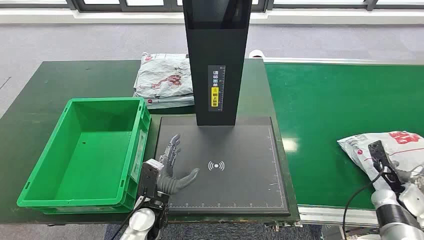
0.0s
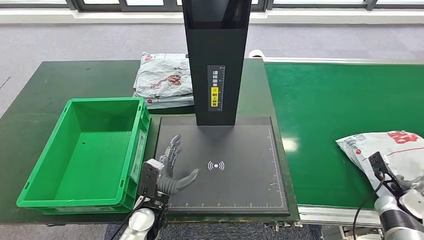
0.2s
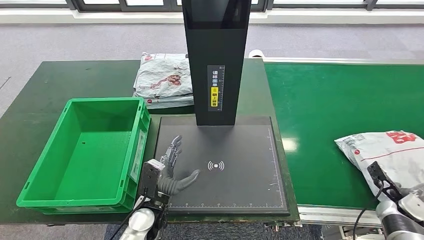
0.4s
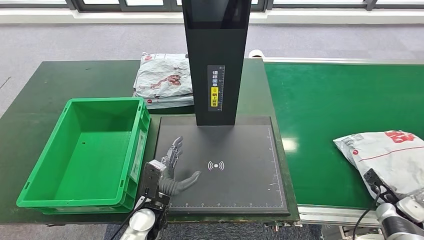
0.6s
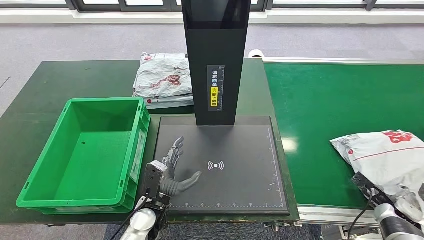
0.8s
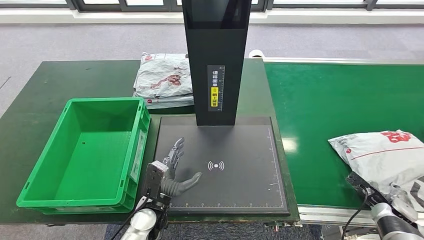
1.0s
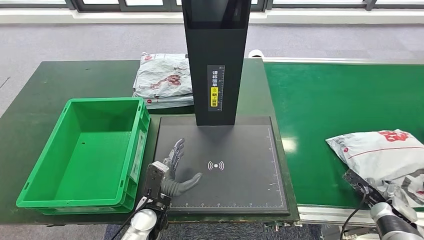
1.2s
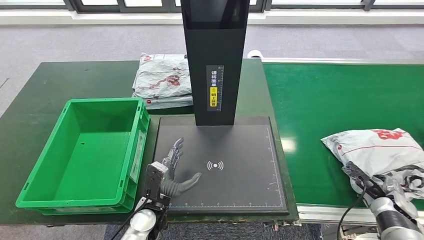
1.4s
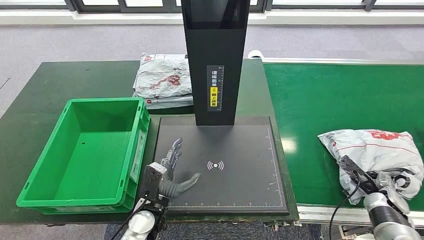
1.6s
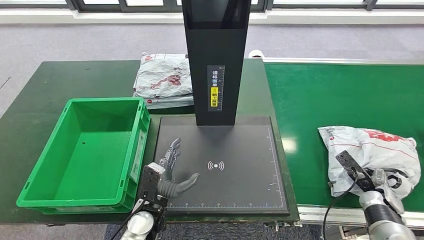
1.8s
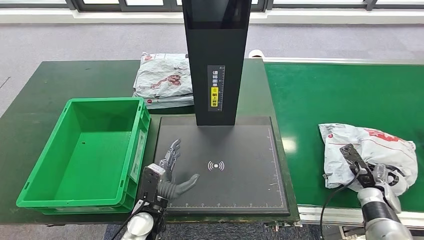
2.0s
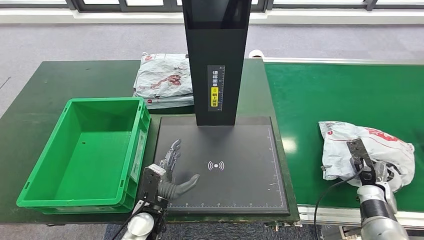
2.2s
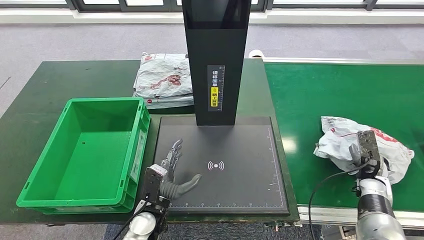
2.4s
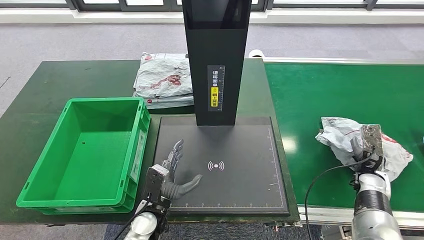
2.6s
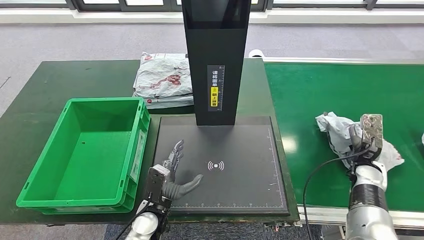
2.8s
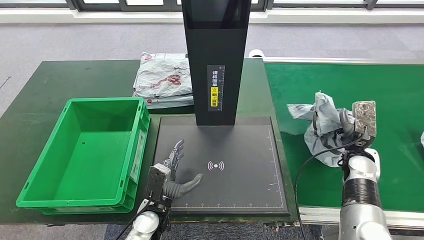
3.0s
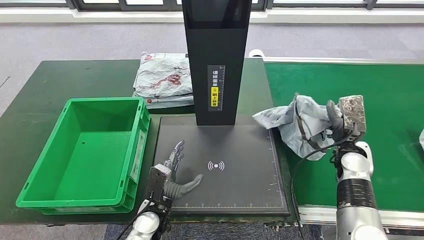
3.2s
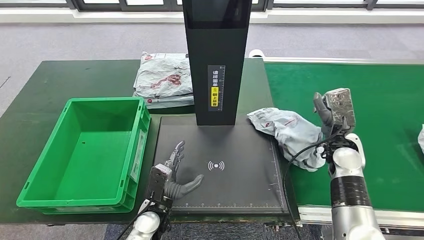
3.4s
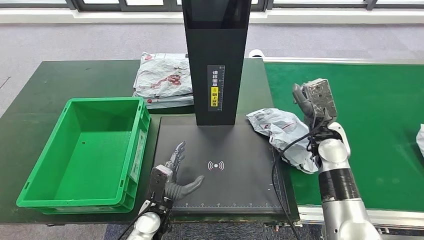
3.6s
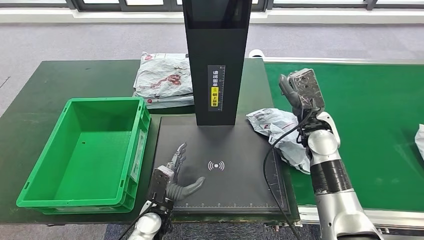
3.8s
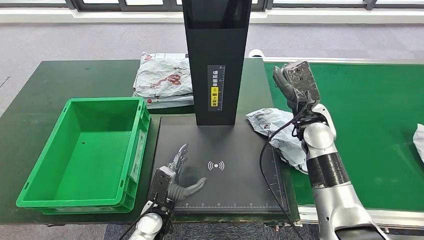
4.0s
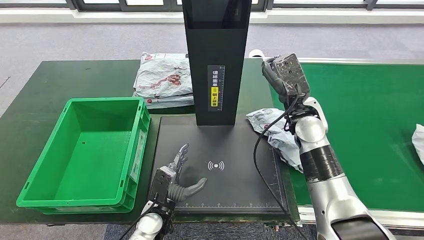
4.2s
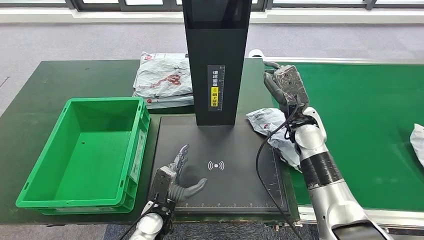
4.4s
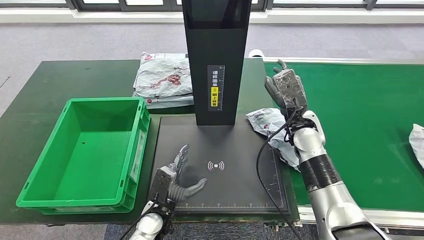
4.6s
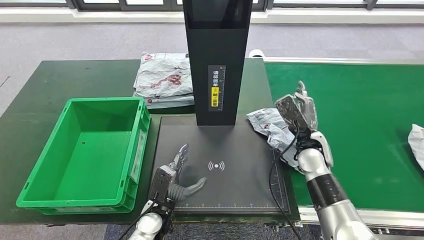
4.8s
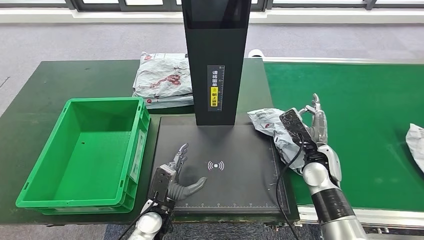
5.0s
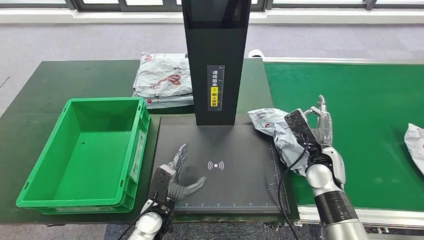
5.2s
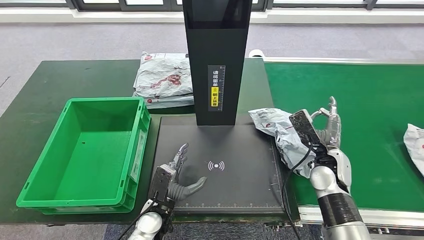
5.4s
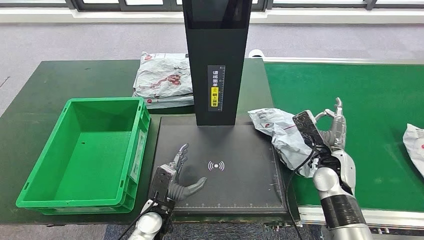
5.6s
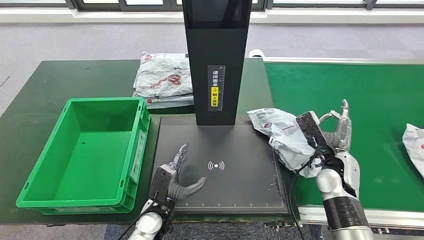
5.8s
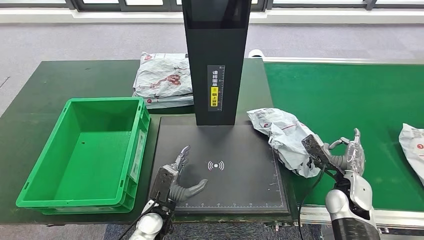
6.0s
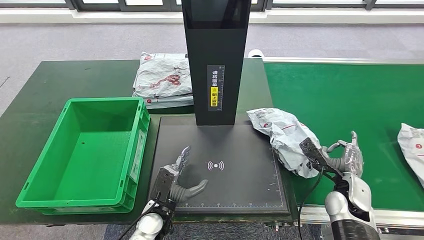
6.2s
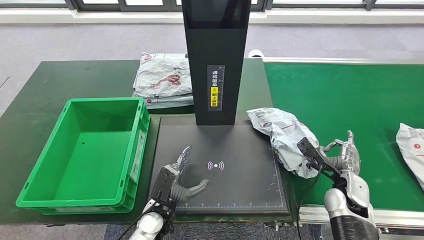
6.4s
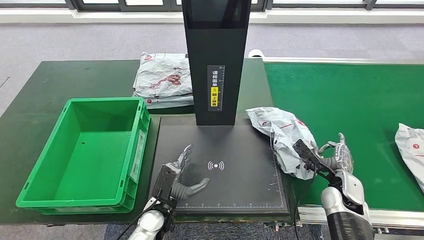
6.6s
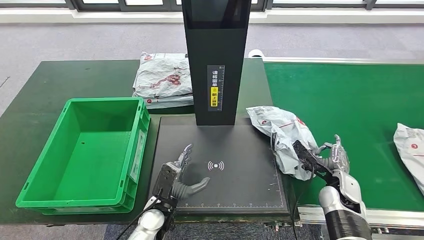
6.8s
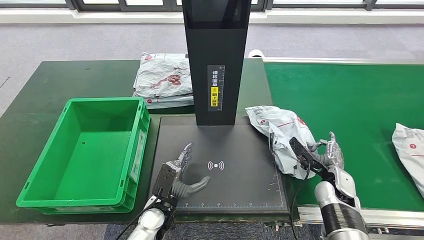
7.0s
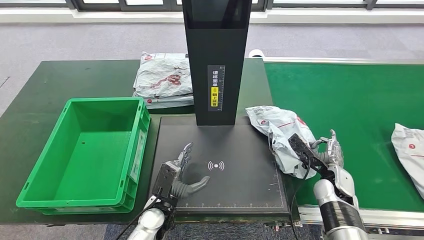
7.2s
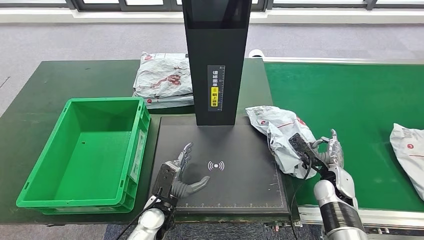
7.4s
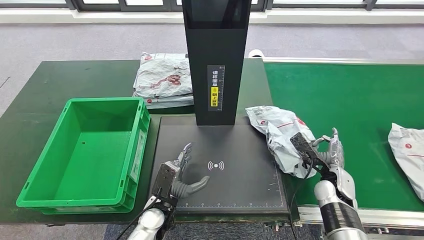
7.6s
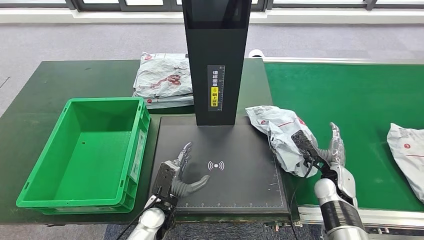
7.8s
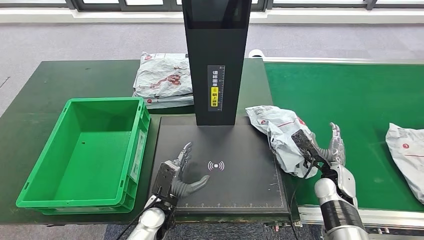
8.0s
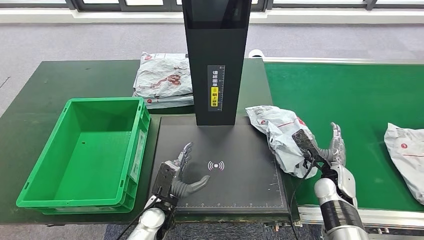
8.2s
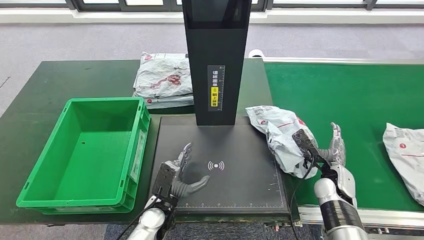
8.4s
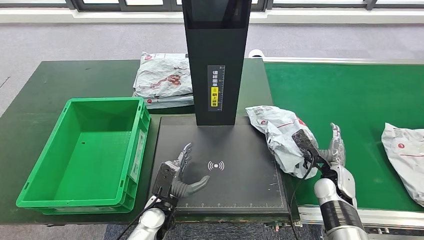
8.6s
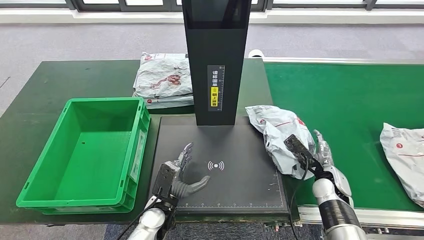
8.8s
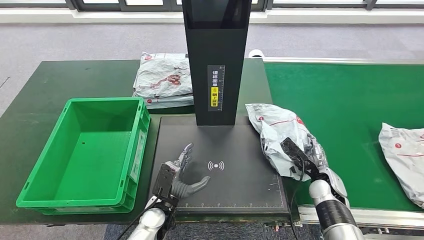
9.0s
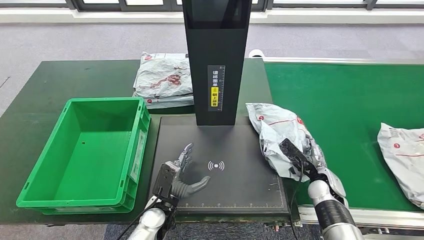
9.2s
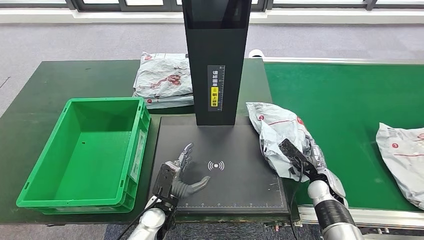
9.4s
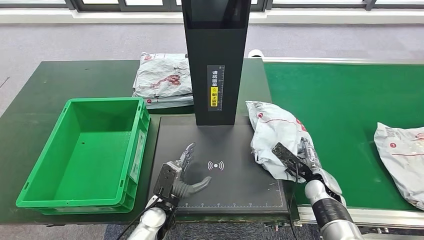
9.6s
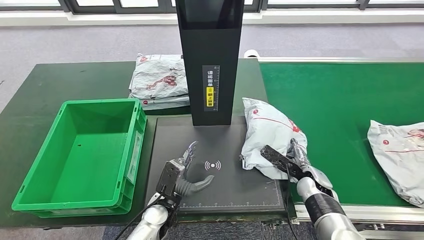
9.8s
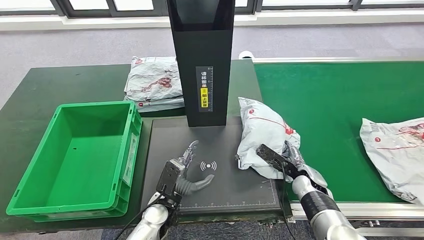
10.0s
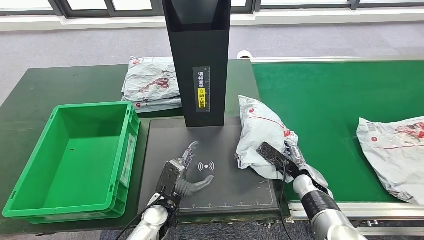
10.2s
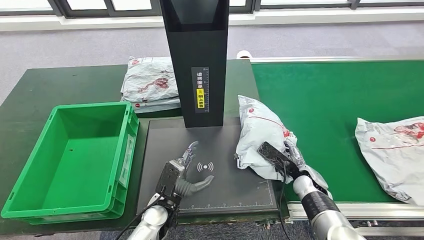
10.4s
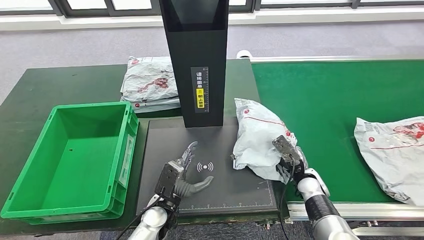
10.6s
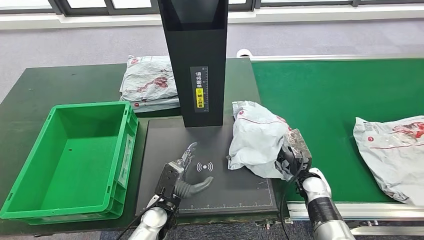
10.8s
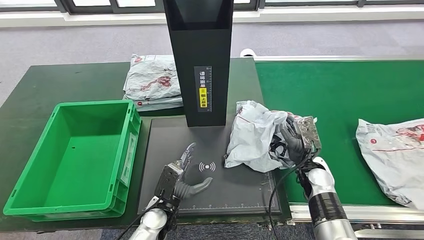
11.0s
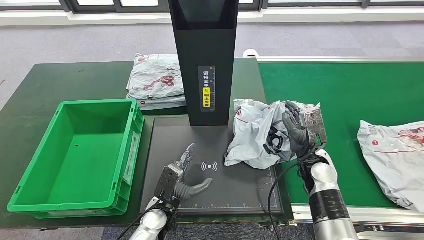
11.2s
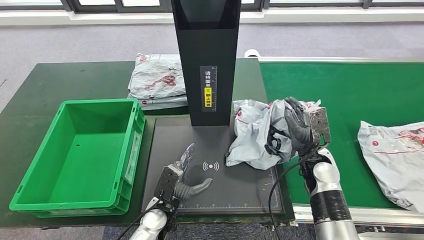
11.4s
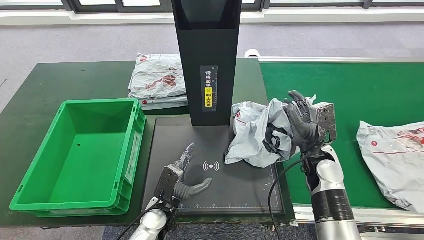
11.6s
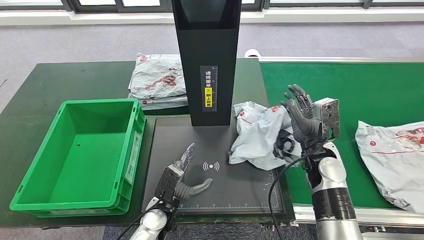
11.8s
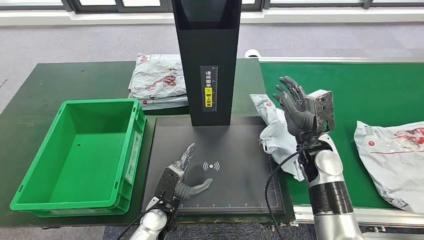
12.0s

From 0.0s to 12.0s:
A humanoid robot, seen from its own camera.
Step, from 0.0s to 3.0s: Take the parcel off the conveyor belt.
From 1.6s to 3.0s: The right hand heads to the left, forward and upward, covering approximately 15 cm.
From 3.0s to 4.4s: The right hand travels to the left and upward by roughly 20 cm.
From 4.4s to 6.0s: The right hand goes some 15 cm to the right, backward and downward.
From 6.0s to 7.6s: The right hand is displaced downward by about 5 cm.
From 7.6s to 9.0s: The hands make only small movements.

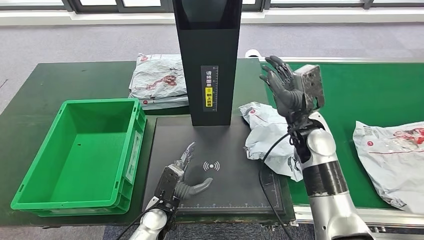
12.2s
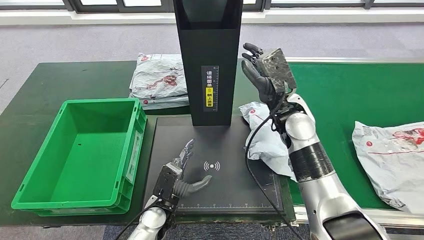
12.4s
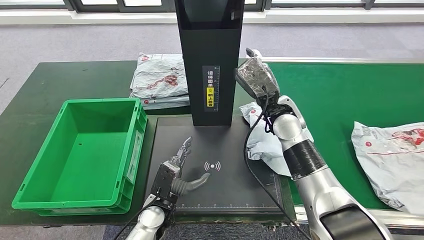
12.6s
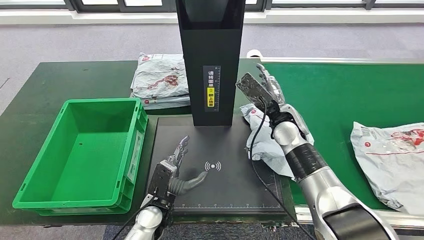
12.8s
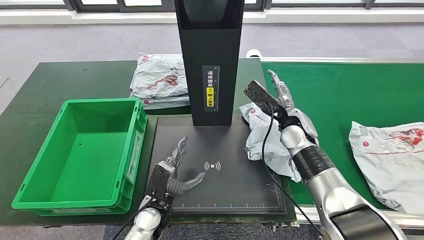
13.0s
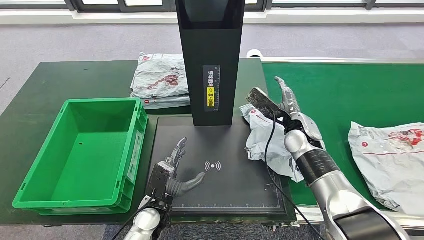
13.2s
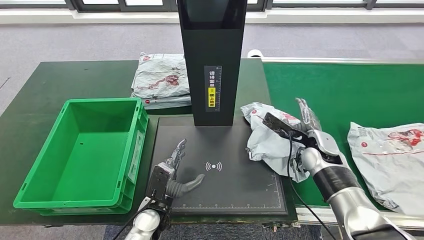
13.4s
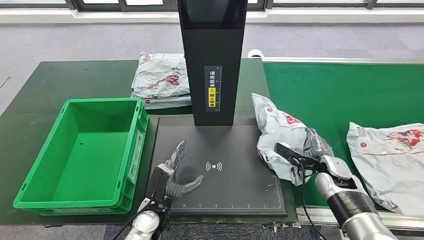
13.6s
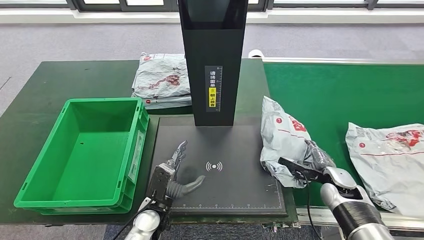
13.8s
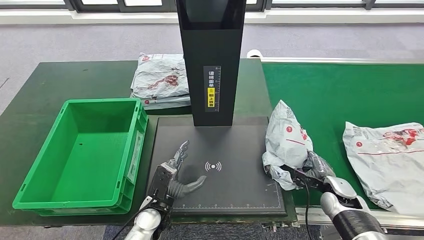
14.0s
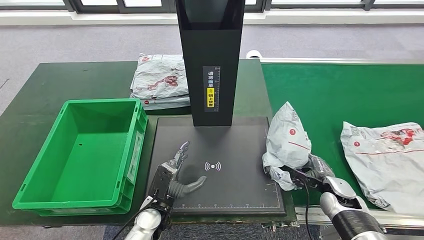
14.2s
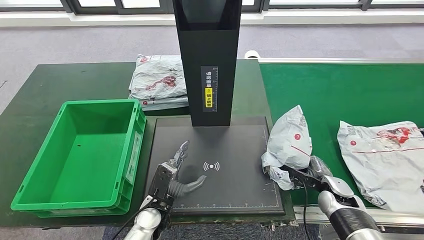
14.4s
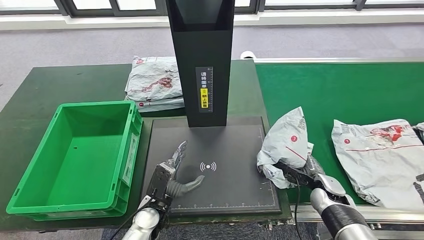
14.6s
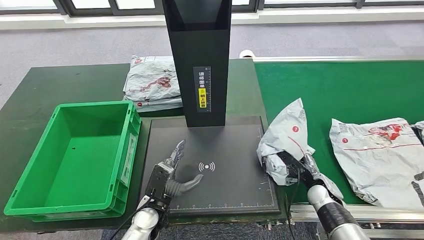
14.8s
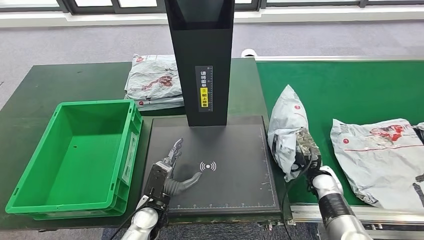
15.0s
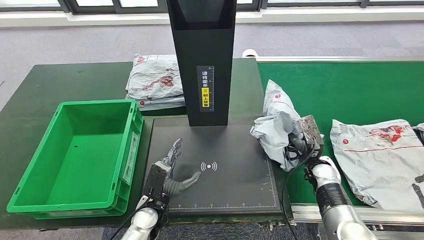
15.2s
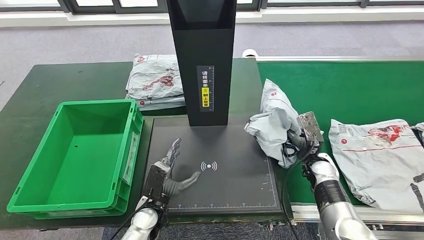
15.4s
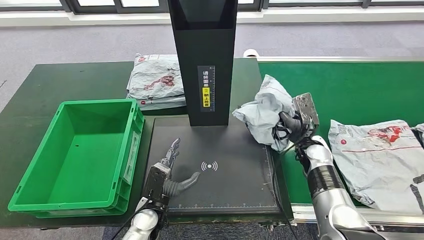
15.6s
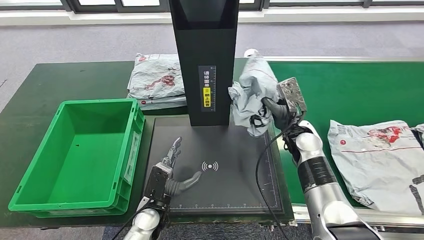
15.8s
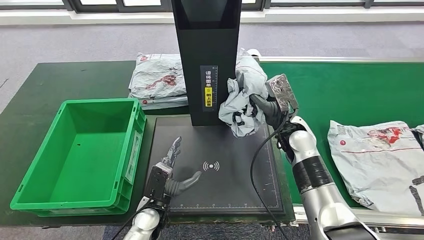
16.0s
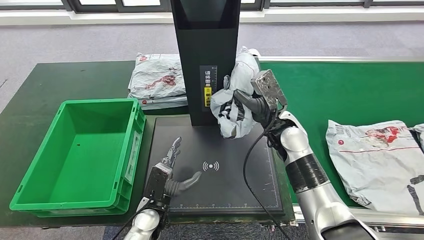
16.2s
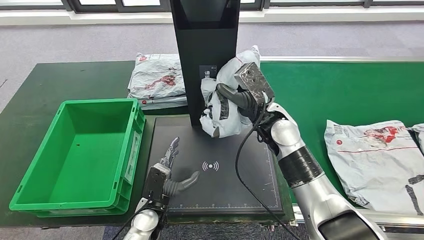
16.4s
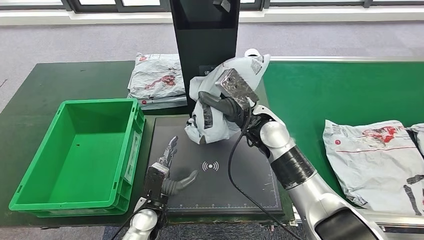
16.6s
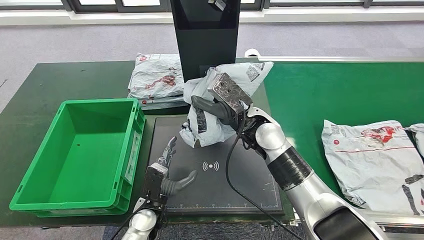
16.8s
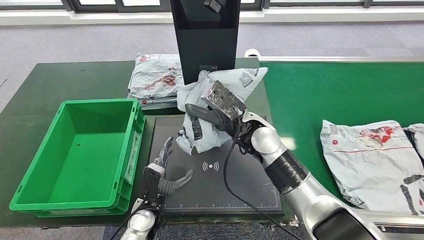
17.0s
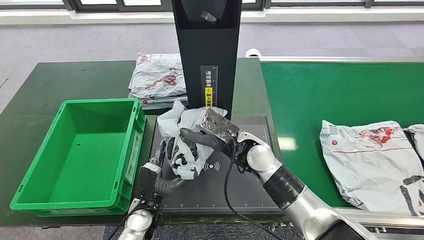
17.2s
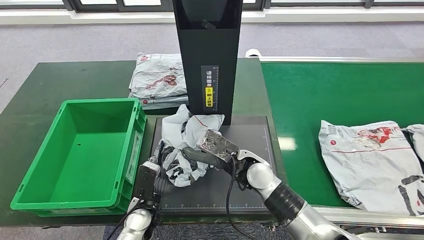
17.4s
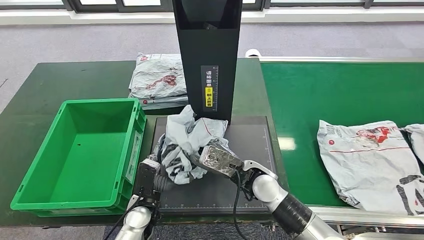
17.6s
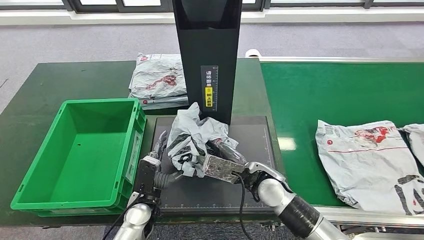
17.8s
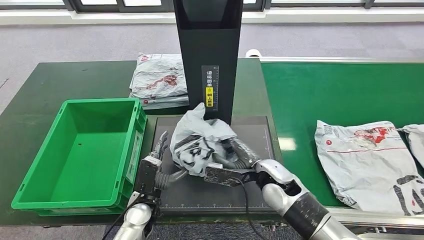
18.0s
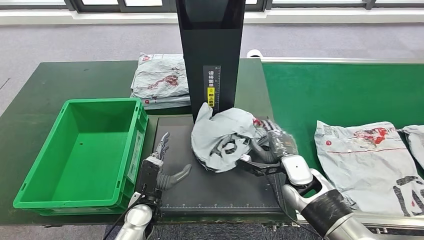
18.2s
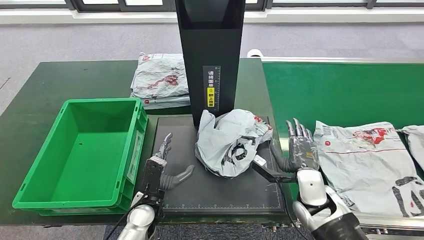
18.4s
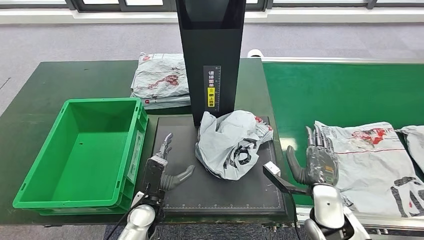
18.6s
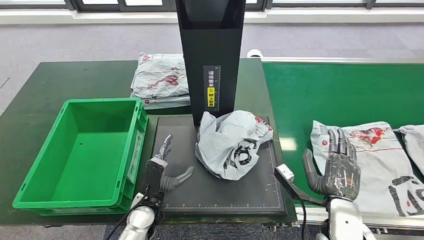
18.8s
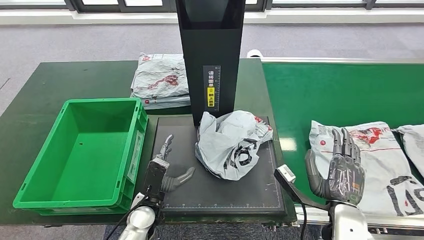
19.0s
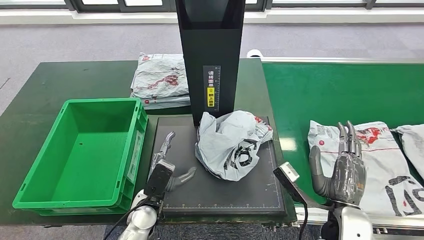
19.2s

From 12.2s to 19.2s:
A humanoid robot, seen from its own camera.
Step, from 13.8s to 18.4s: Place the parcel onto the inbound machine.
